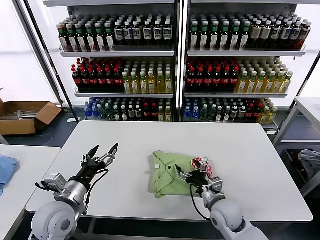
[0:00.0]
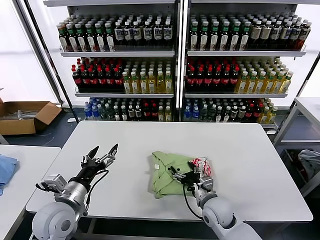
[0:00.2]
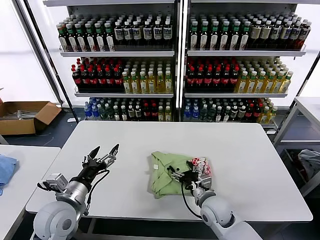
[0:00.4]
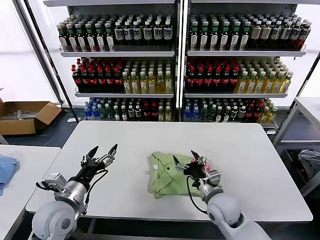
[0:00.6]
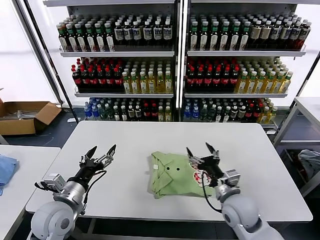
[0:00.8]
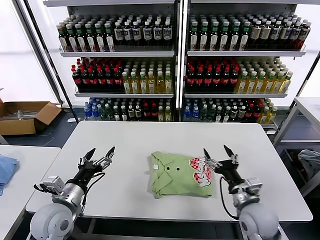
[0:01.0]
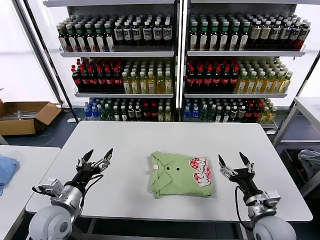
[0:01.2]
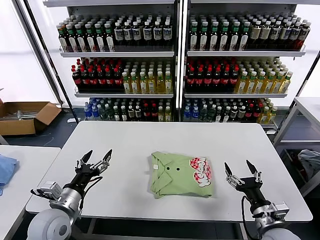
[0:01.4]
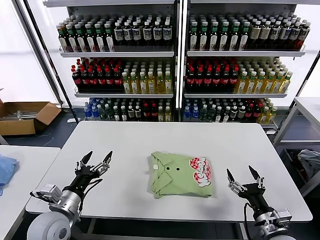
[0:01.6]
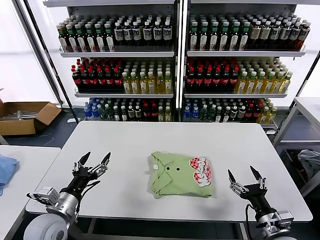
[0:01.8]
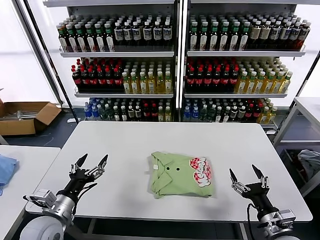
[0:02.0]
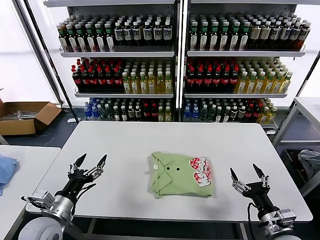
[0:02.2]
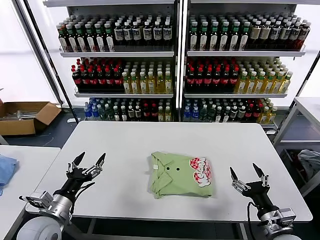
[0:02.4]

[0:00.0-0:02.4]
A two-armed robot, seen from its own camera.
Task of the whole recording: fold and organize the clothes.
0:00.0 to 0:01.2: The right gripper heads to the right and backward, covering about 10 cm.
0:01.2 to 0:02.4: The right gripper shifts roughly 5 cm backward.

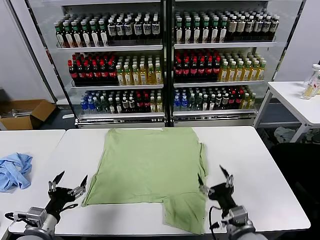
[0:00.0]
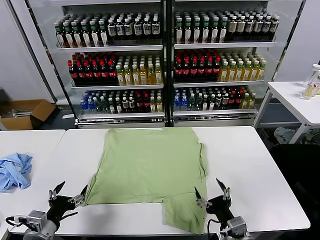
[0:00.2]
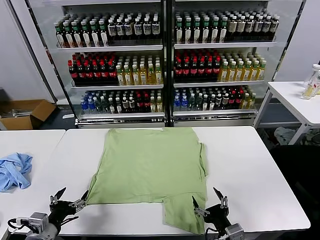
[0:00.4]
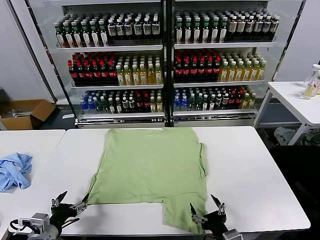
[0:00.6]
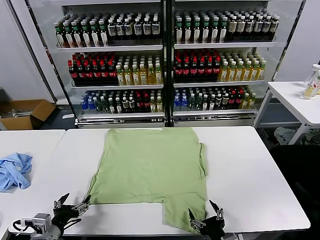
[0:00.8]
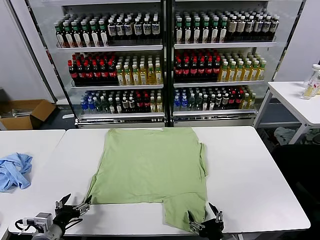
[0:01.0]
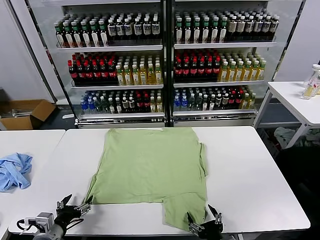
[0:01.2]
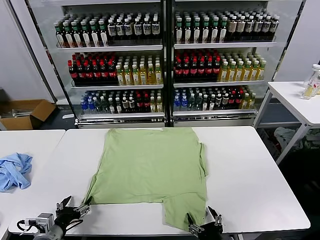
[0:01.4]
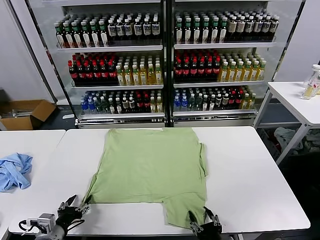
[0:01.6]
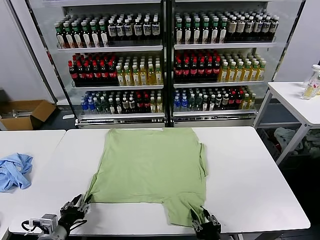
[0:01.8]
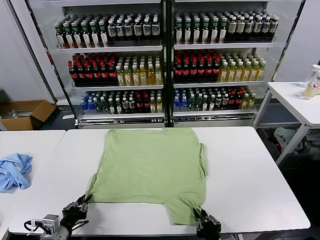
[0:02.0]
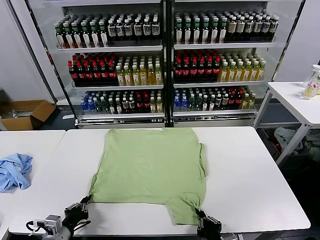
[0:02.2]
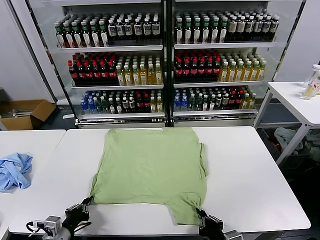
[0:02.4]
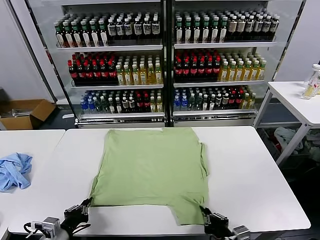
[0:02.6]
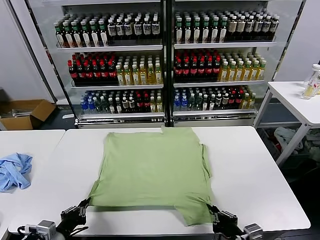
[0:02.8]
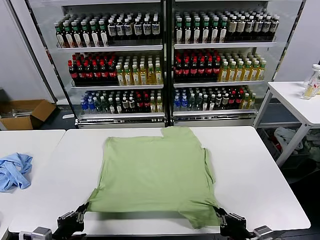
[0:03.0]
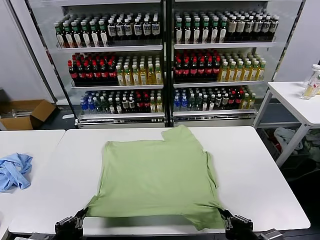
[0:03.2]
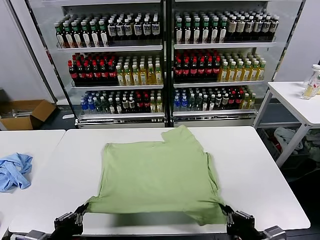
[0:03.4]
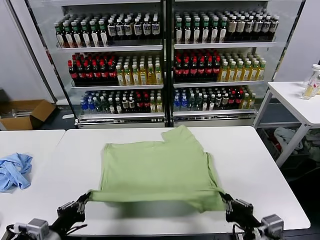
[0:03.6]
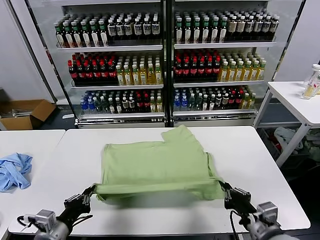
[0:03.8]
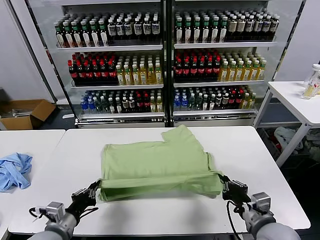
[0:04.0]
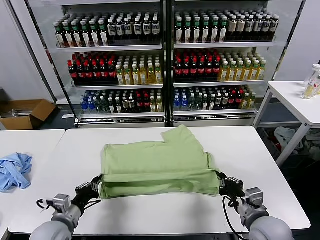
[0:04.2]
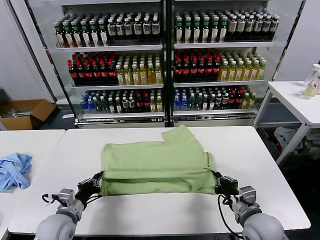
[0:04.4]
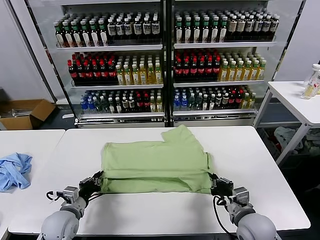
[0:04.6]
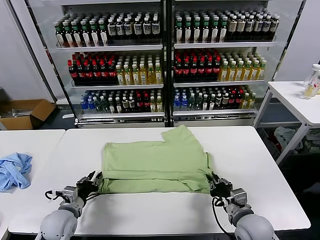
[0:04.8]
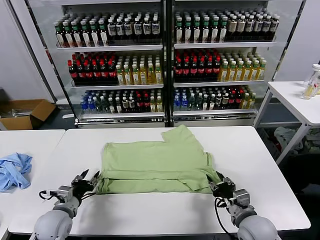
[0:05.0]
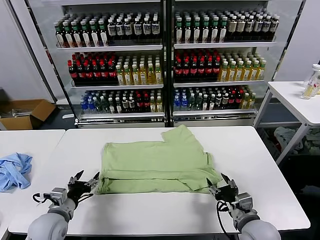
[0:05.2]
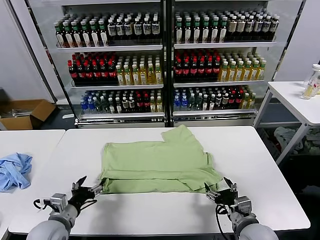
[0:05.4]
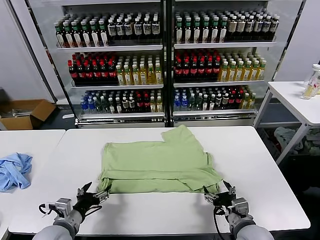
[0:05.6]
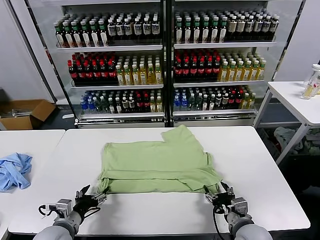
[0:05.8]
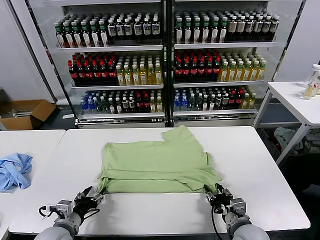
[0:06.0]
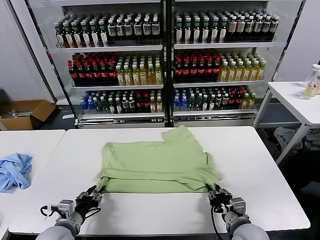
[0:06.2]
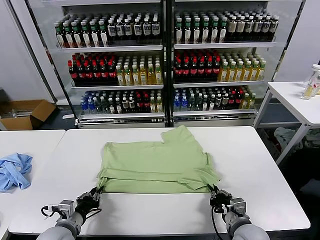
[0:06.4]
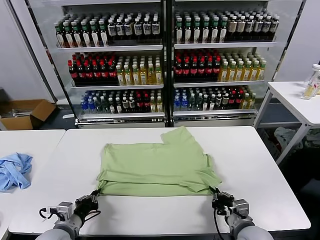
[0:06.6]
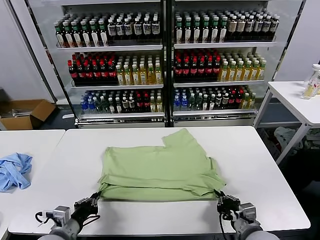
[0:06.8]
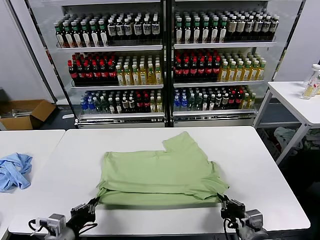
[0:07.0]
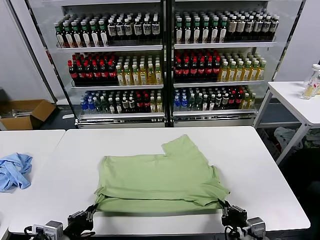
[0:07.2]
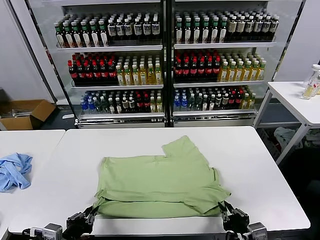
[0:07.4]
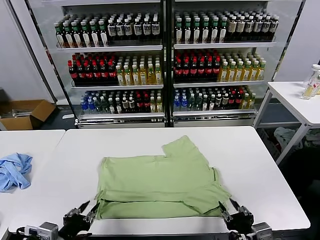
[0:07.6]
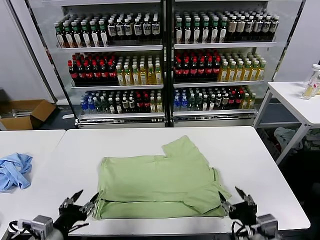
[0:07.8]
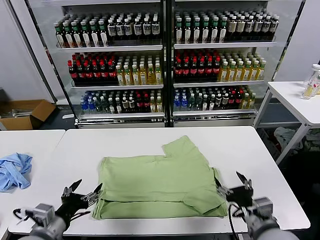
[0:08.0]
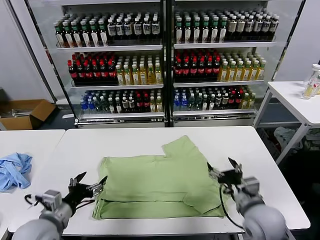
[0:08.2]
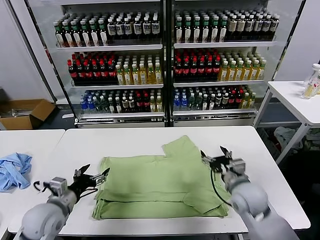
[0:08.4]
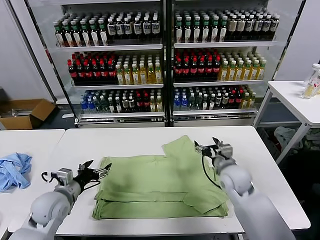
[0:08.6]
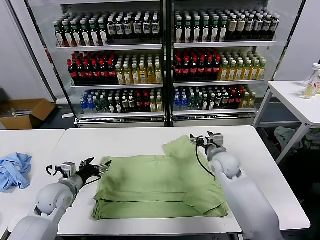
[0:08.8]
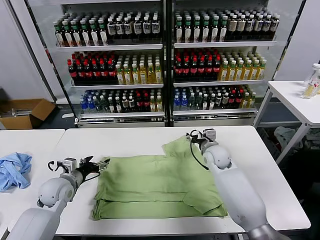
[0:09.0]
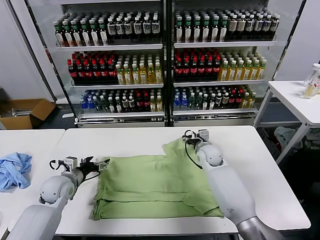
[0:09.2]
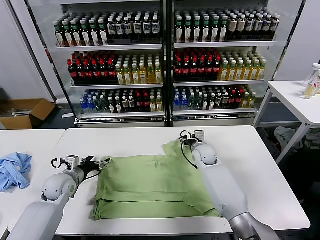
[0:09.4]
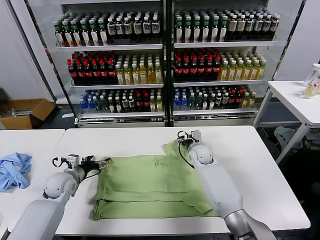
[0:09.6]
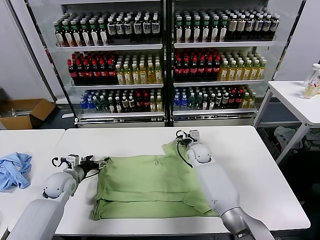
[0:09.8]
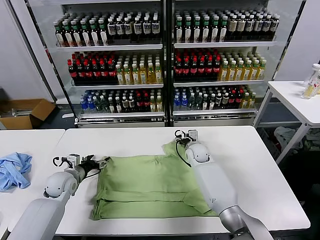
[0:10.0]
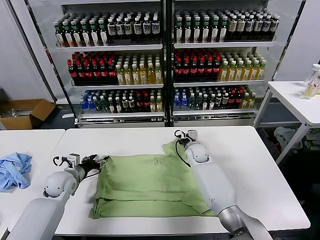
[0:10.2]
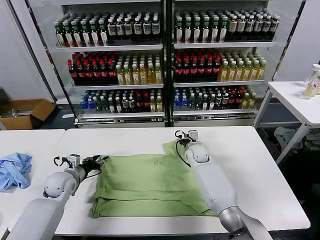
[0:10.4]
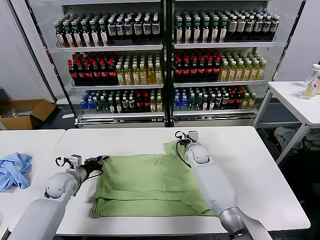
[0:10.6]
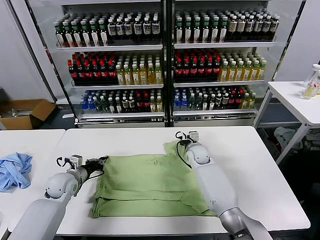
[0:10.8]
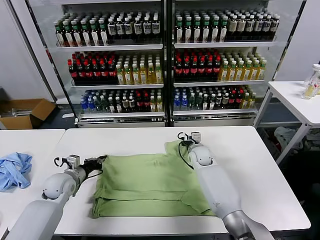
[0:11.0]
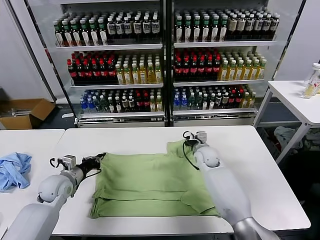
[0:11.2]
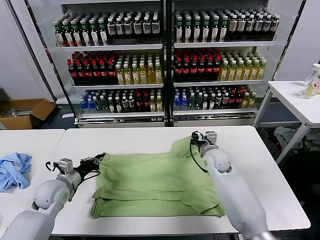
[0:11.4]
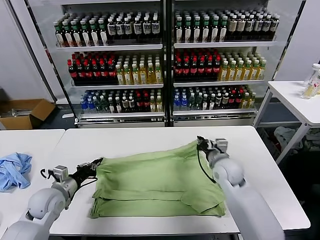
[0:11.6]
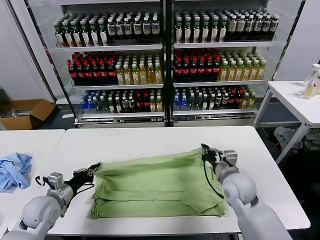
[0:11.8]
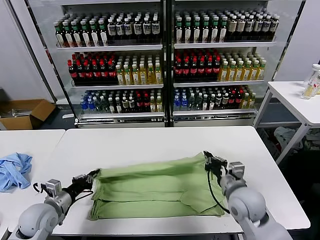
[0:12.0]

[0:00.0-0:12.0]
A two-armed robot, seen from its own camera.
Task of the whole recording: fold and organize the clothes.
Step, 0:00.0 to 0:02.6: use both grippers simultaneously to clamp the lower edge of the clothing fabric.
Step, 0:02.8 to 0:05.0: use both grippers to drag the lower edge of the fabric forward and fold it over the upper edge.
Step, 0:05.4 to 0:07.6: Drag the clothes downward with both gripper.
Step, 0:07.8 to 0:10.8: use both grippers simultaneously to clamp the upper edge of the clothing fabric.
0:01.6 to 0:03.0: The left gripper heads backward, covering approximately 5 cm, and closes; the right gripper shifts about 10 cm upward and to the right, and closes.
0:03.0 to 0:04.4: The grippers both shift forward by some 15 cm.
0:04.4 to 0:06.0: The left gripper opens its fingers; the right gripper moves some 5 cm, and opens up.
0:06.0 to 0:07.6: The grippers both shift backward and upward by roughly 10 cm. The left gripper closes its fingers. The right gripper closes and opens again.
0:07.6 to 0:09.0: The left gripper heads forward, covering about 25 cm, and opens up. Meanwhile the right gripper travels forward by approximately 35 cm, and opens its fingers.
0:09.0 to 0:10.4: The right gripper travels downward by approximately 5 cm, and closes. Meanwhile the left gripper closes its fingers.
0:10.4 to 0:12.0: The left gripper travels backward by roughly 10 cm, and closes up. The right gripper goes roughly 25 cm backward, and closes up.

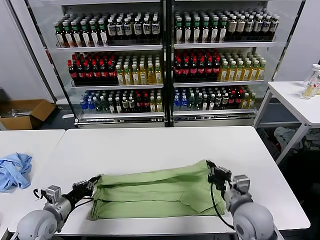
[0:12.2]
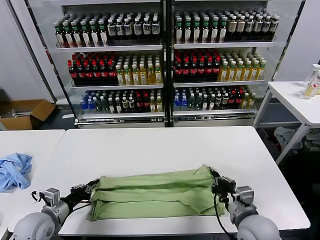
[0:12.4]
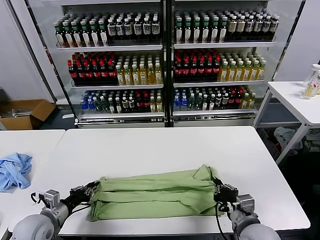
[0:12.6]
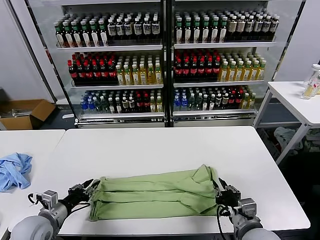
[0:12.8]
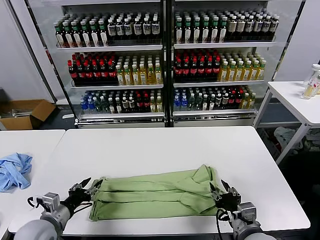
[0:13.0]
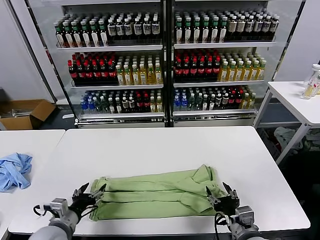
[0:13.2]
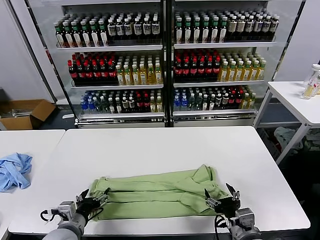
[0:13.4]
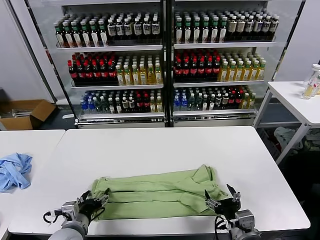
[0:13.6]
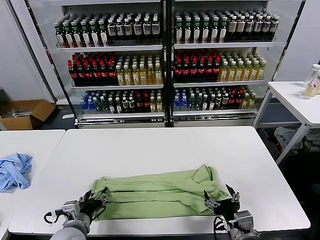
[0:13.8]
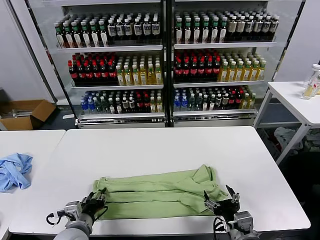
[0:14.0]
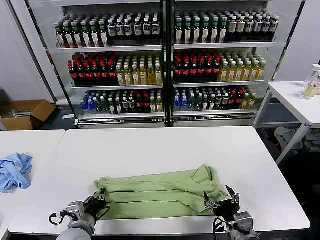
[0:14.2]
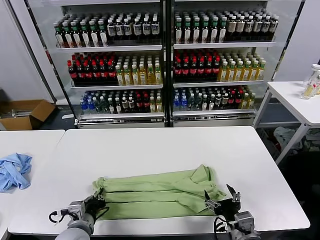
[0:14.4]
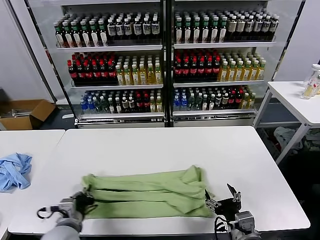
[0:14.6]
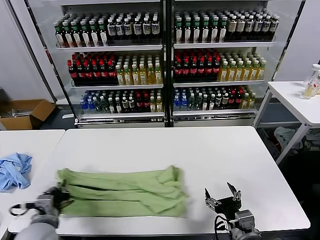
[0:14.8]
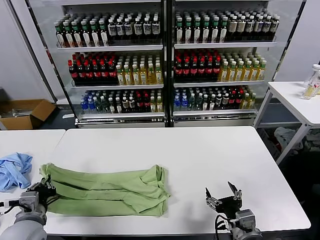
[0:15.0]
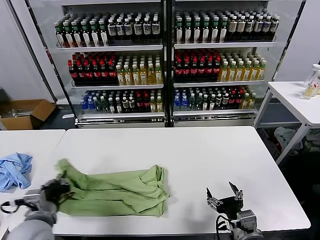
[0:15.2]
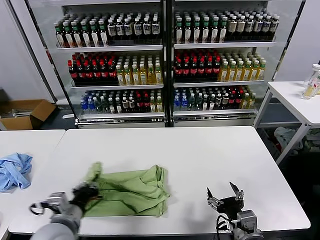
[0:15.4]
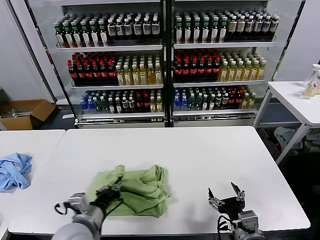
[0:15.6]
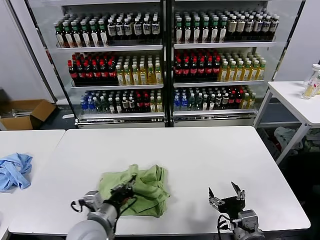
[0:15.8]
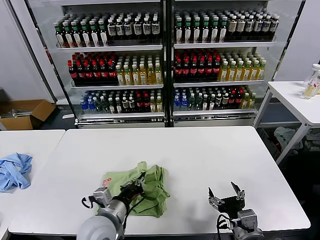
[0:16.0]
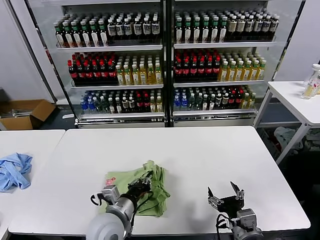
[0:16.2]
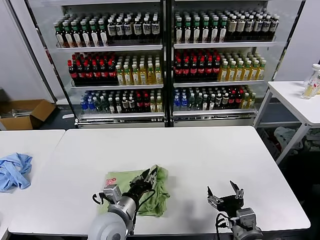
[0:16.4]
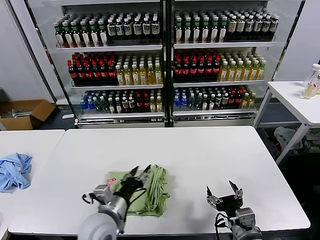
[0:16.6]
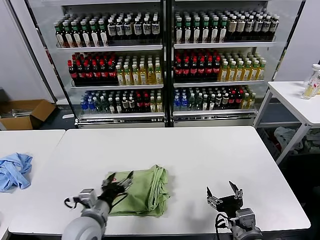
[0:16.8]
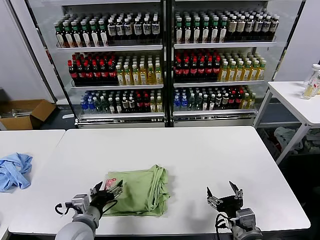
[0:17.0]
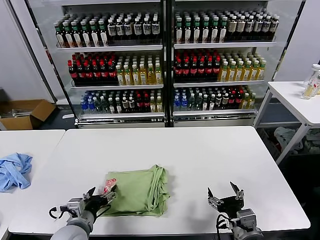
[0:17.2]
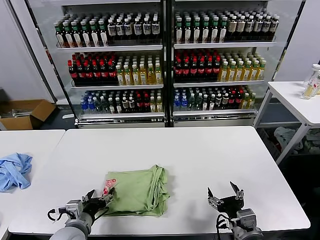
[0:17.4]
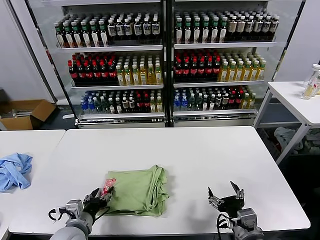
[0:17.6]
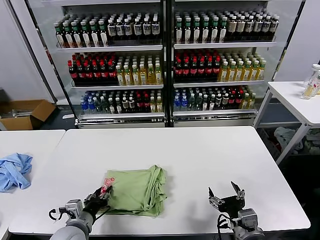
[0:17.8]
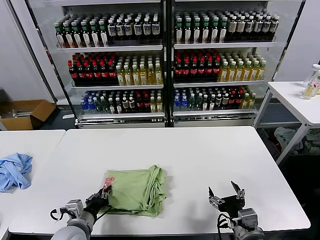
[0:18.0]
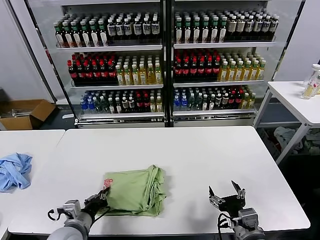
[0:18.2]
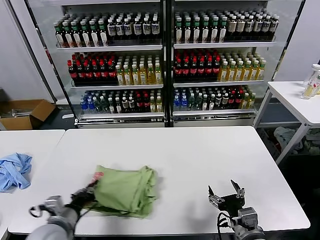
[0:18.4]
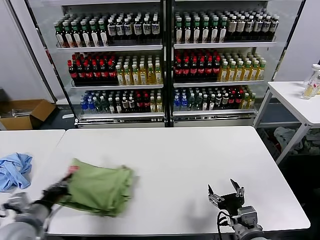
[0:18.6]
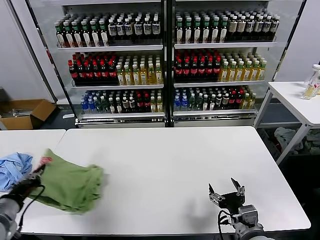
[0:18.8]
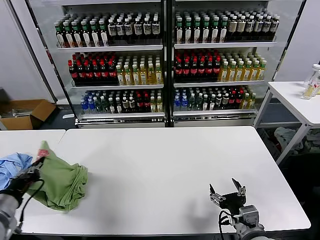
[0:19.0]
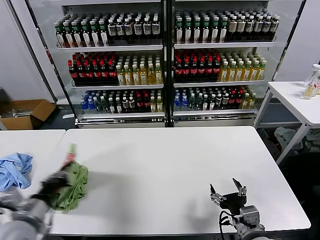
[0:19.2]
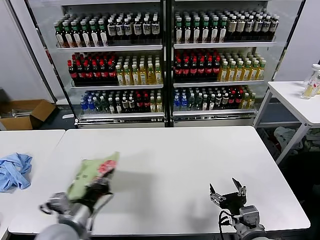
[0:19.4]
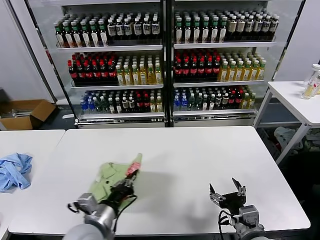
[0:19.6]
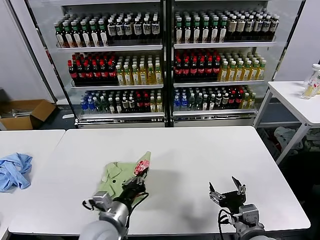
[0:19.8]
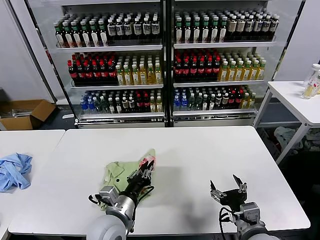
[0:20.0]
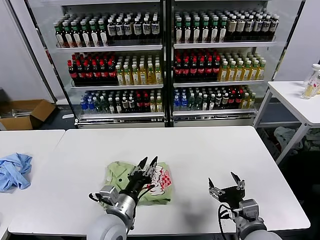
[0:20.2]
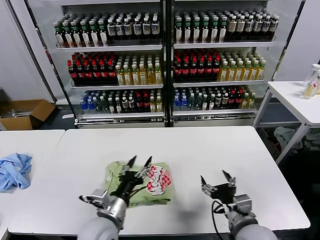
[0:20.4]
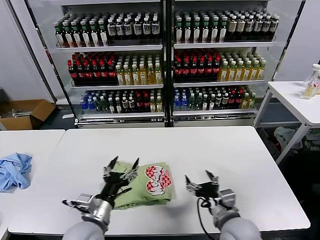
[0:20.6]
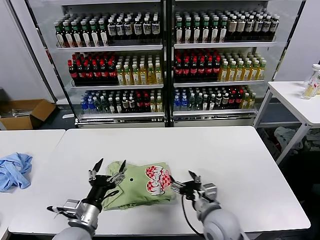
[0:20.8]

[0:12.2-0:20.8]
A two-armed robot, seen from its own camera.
Task of the whole recording: fold and organize the clothes.
Step, 0:13.2 to 0:14.2: use the left gripper to clamp the left edge of the fabric.
Step, 0:14.6 to 0:16.4: use the left gripper to drag the left edge of the fabric to the left and folds it over the right edge.
Step, 0:16.6 to 0:20.2: Flip the folded clothes over with left gripper.
0:12.2 to 0:13.6: The right gripper heads backward, covering about 10 cm, and opens; the left gripper is displaced to the right and backward by about 10 cm, and opens its fingers.
0:13.6 to 0:15.0: The left gripper shifts roughly 10 cm to the left and upward, and closes.
0:15.0 to 0:16.6: The left gripper shifts approximately 20 cm to the right, and opens up.
0:16.6 to 0:18.0: The left gripper is displaced to the left and downward by roughly 10 cm, and opens, then closes once more.
0:18.0 to 0:19.4: The left gripper heads upward, covering roughly 10 cm, and travels to the left and back again, some 15 cm each way.
0:19.4 to 0:20.8: The left gripper shifts about 5 cm to the right, and opens its fingers. Meanwhile the right gripper is displaced to the left and forward by some 10 cm.
